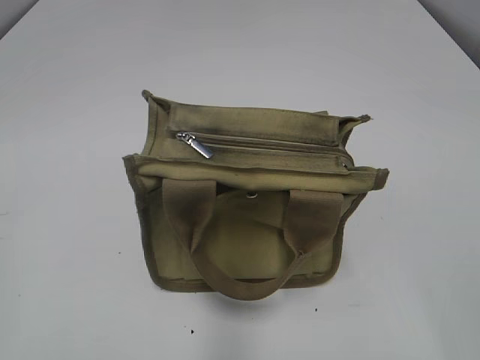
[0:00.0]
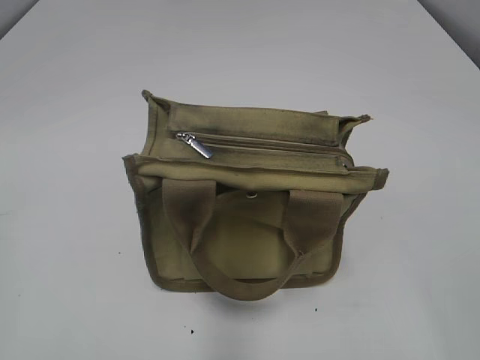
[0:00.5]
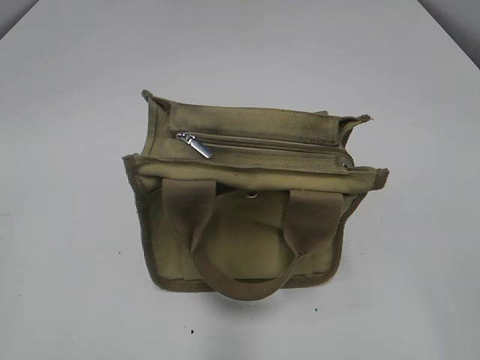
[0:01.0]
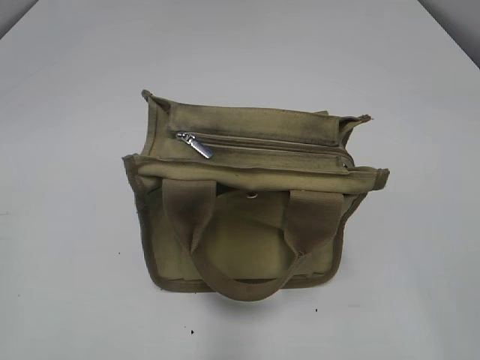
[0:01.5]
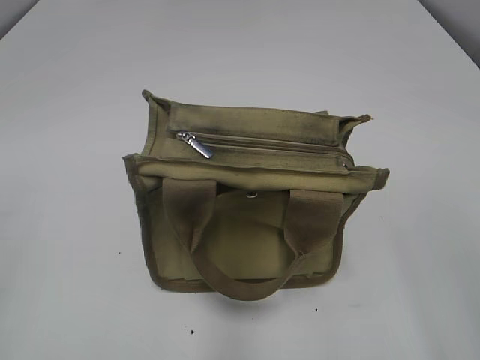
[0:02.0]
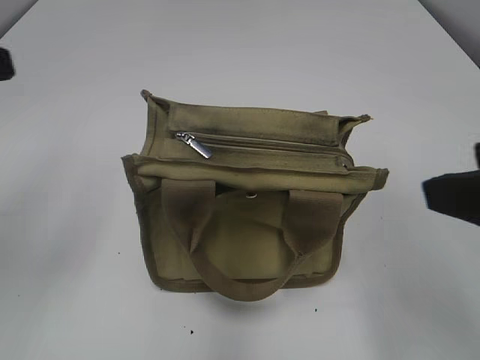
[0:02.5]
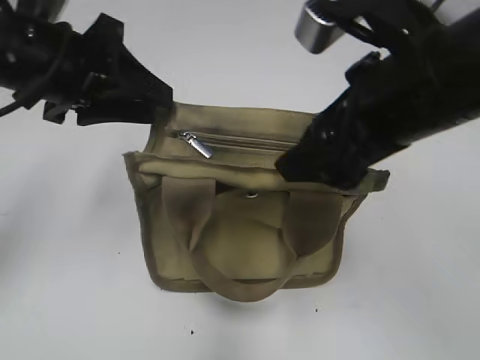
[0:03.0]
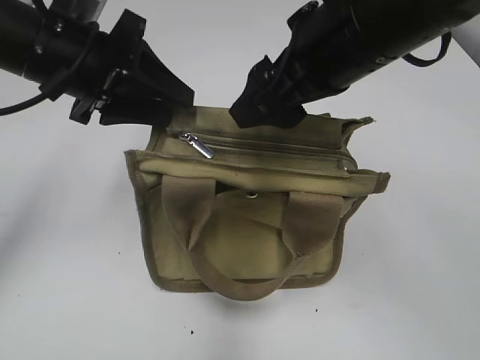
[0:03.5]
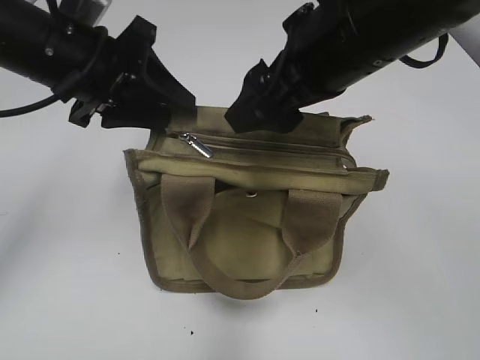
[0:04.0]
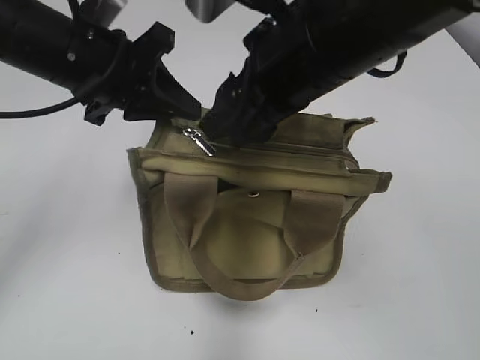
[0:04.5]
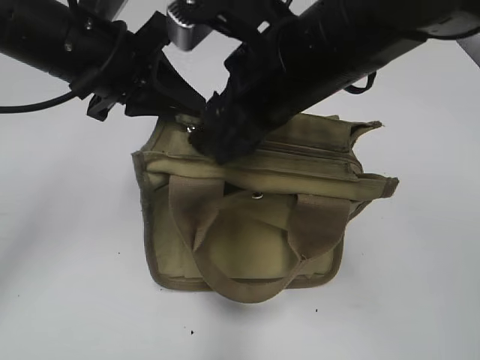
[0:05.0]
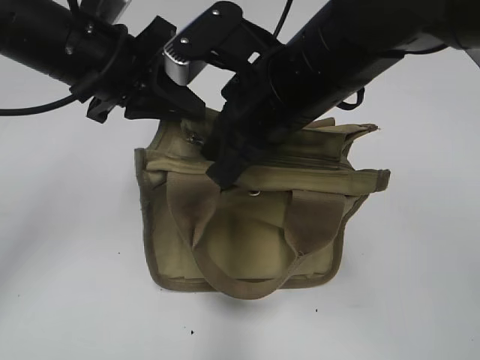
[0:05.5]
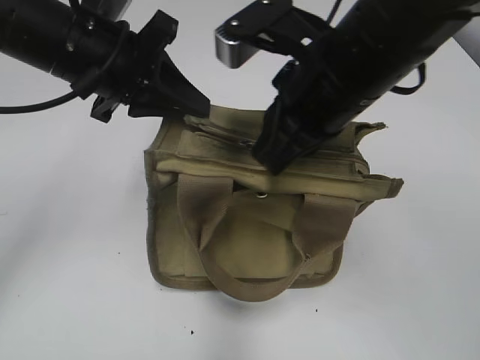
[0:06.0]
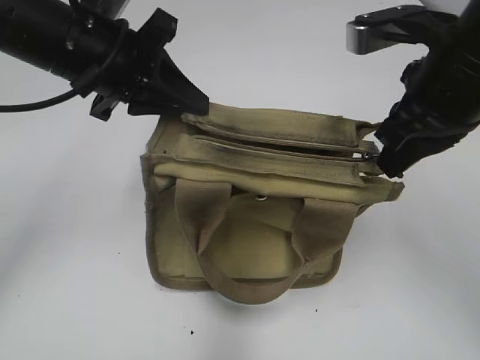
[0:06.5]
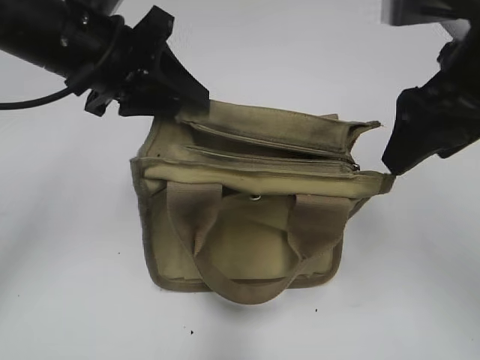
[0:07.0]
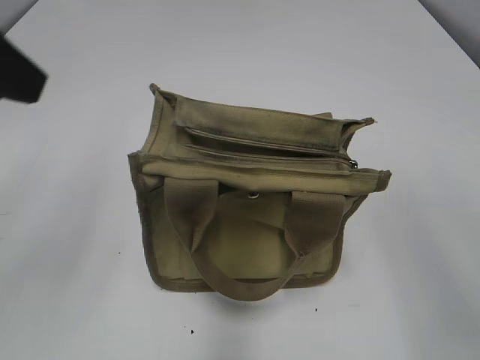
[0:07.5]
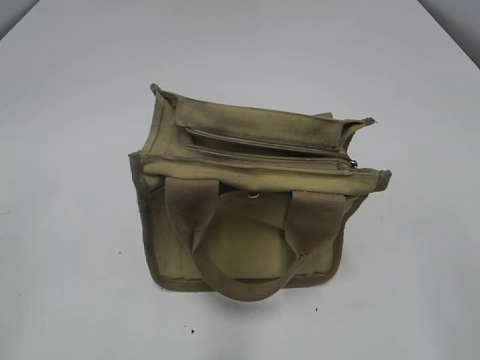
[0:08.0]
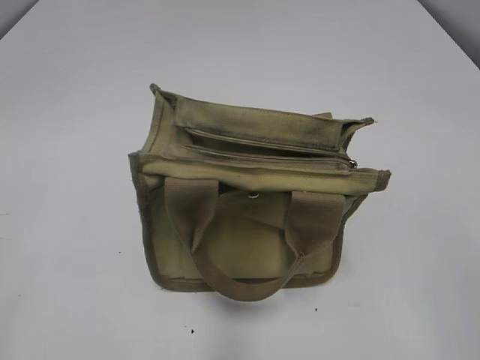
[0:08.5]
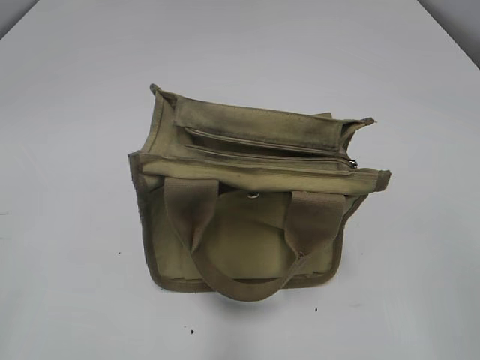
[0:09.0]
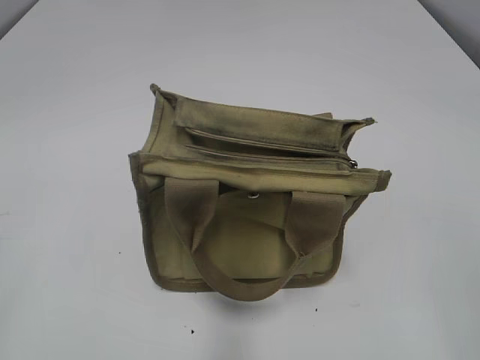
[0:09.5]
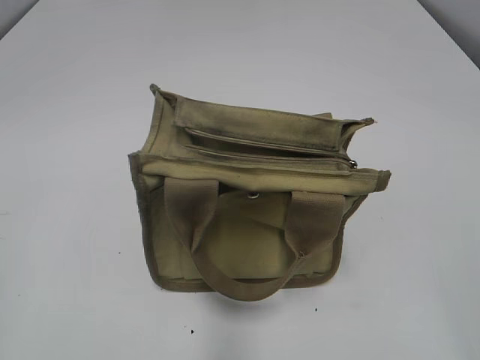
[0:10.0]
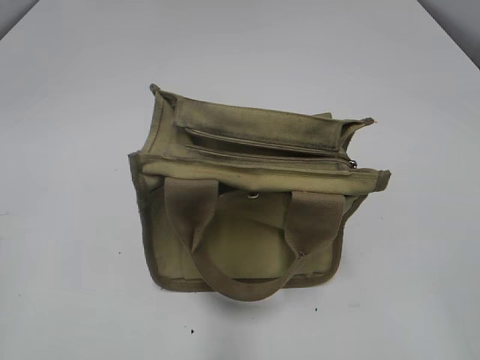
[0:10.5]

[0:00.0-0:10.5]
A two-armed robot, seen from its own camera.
Step, 0:00.0 to 0:06.5: Pull open the zipper with your right hand.
0:02.0 to 0:04.0: The left gripper travels forward and to the right by roughly 35 cm, while the right gripper travels forward and to the left by roughly 30 cm.
0:04.0 to 0:06.5: The right gripper goes about 10 cm to the right, and closes its fingers. The left gripper closes up.
0:06.5 to 0:08.5: The right gripper is displaced backward by approximately 25 cm, and opens. Meanwhile the left gripper moves backward and to the left, approximately 35 cm, and opens its fingers.

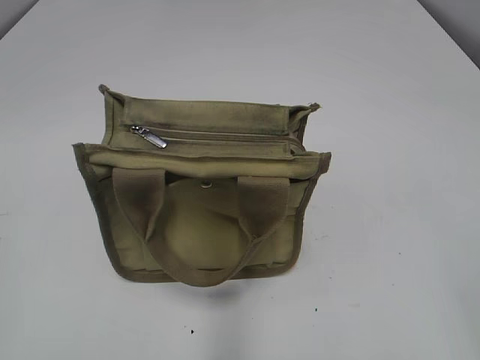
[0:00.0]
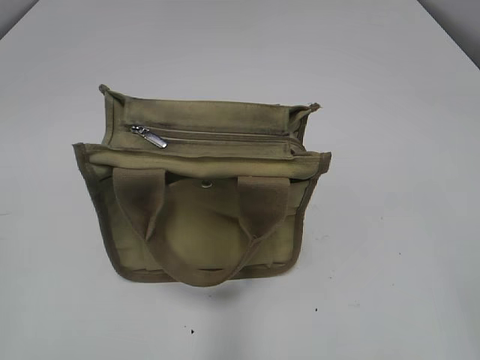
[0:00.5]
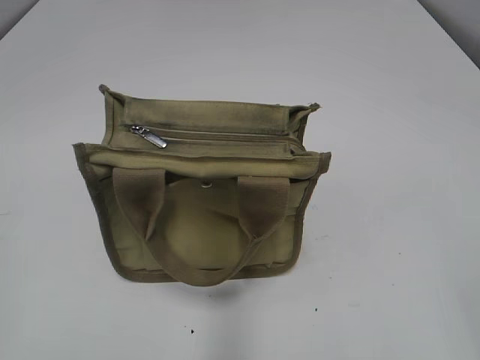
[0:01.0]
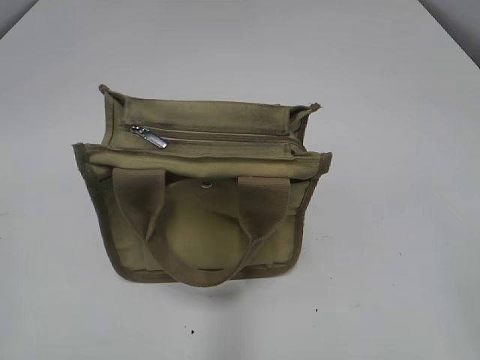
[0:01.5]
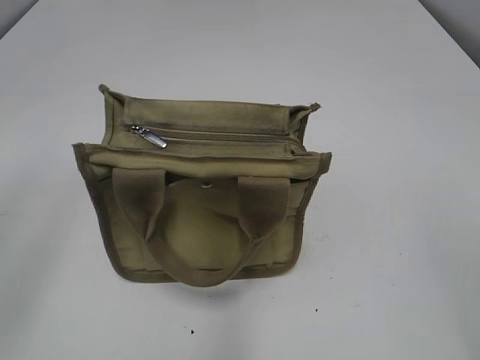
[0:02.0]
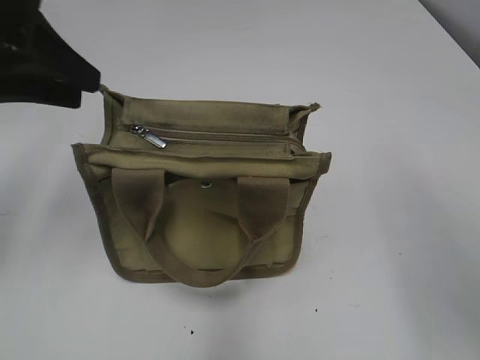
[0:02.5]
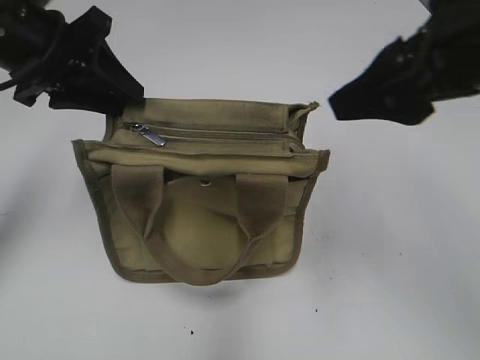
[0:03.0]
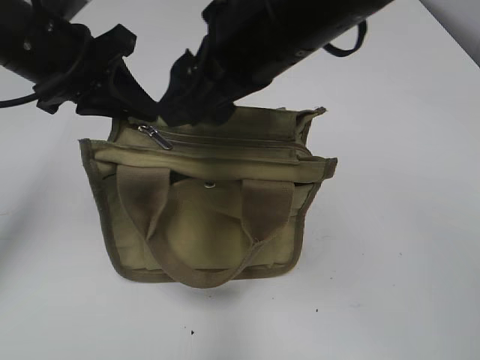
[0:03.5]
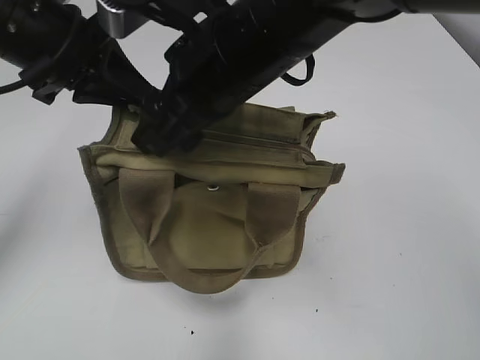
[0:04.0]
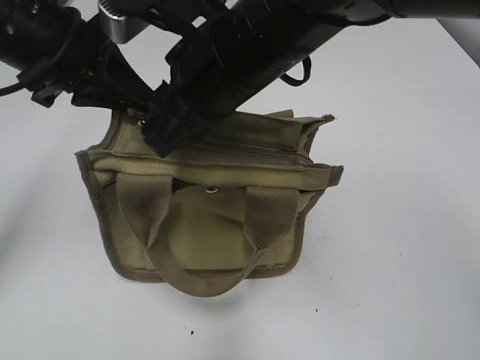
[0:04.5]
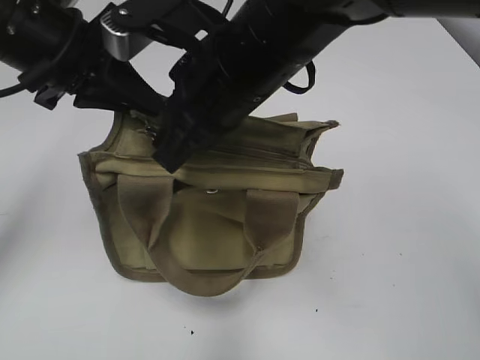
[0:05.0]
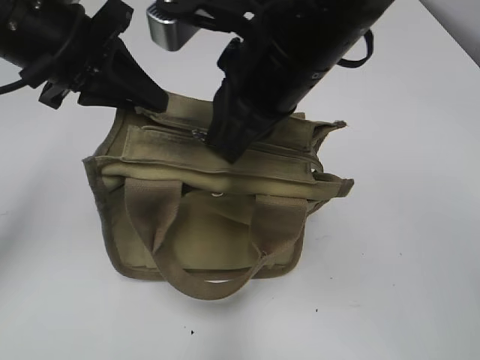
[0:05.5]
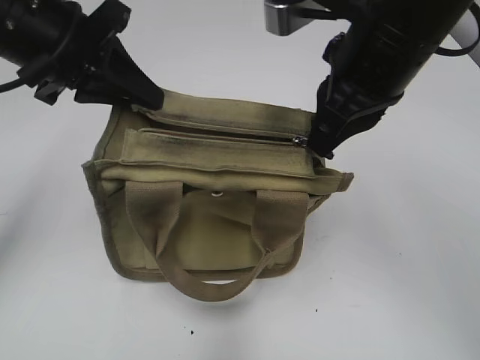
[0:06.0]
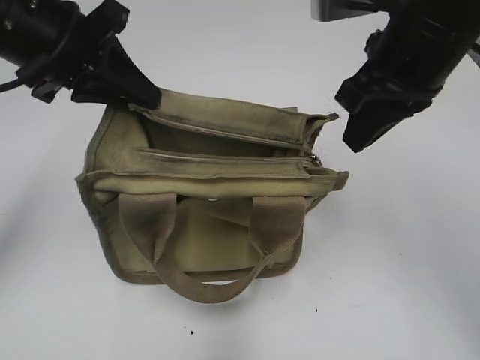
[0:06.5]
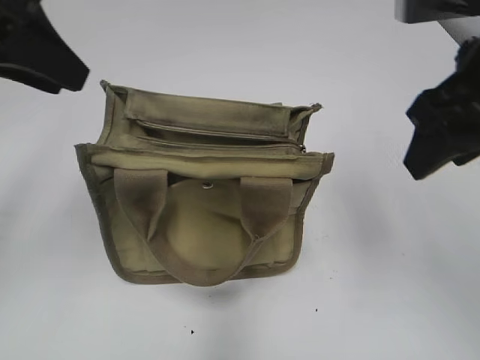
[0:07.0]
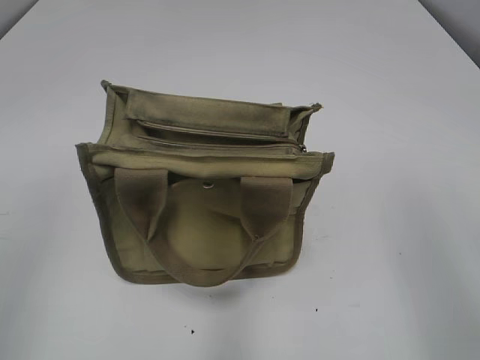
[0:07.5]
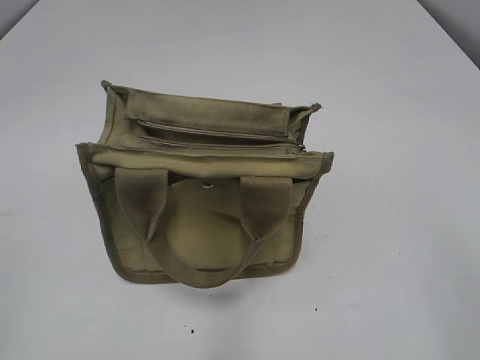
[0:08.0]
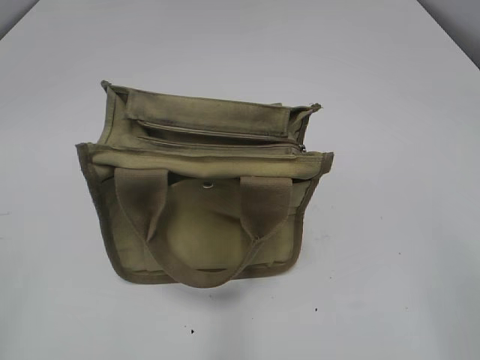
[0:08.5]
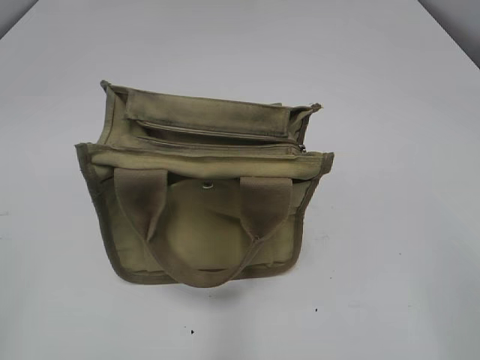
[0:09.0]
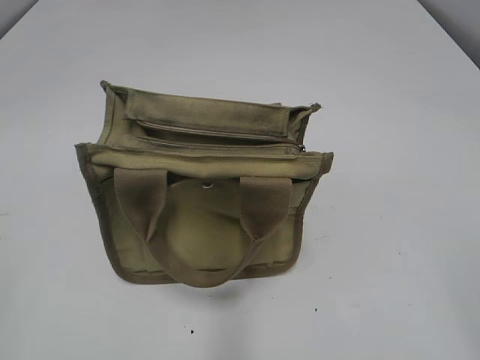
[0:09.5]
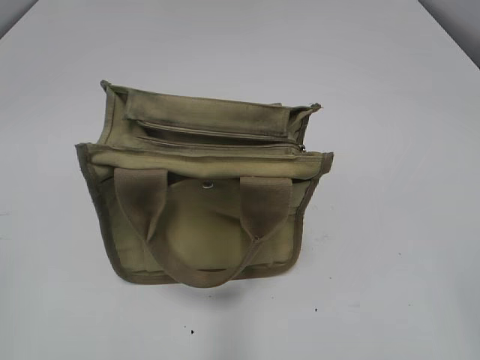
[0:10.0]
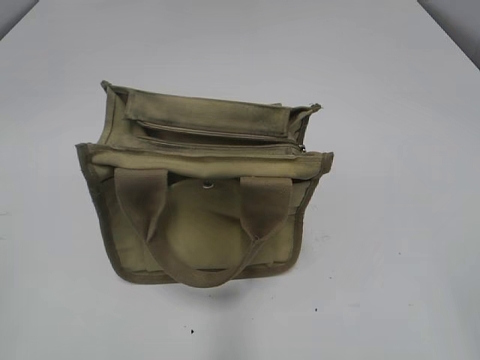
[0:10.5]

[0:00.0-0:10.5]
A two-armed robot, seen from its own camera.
Step, 0:00.0 to 0:06.0: Pull open the zipper with your right hand.
0:02.0 to 0:04.0: The right gripper moves to the left and forward, roughly 35 cm, while the left gripper travels forward and to the right by some 25 cm, and closes its fingers.
0:04.0 to 0:06.5: The right gripper heads to the right, covering some 15 cm, and closes.
0:06.5 to 0:08.5: The right gripper is displaced backward and to the right by approximately 30 cm, and opens its fingers. The left gripper shifts some 30 cm backward and to the left, and opens.

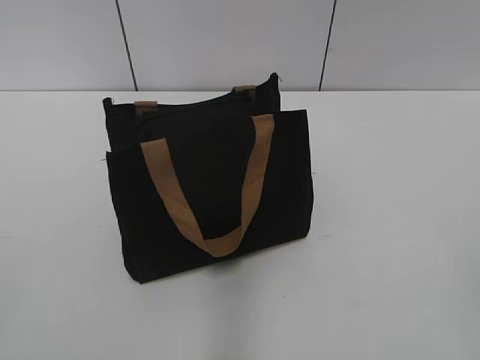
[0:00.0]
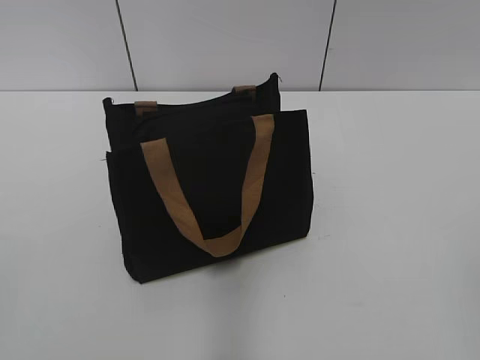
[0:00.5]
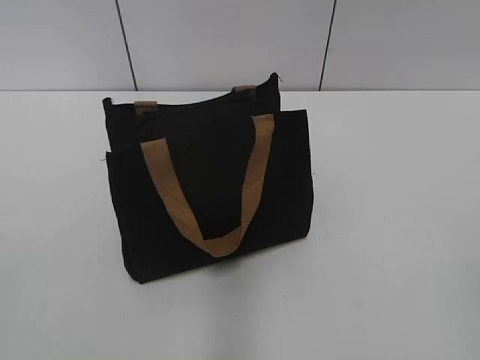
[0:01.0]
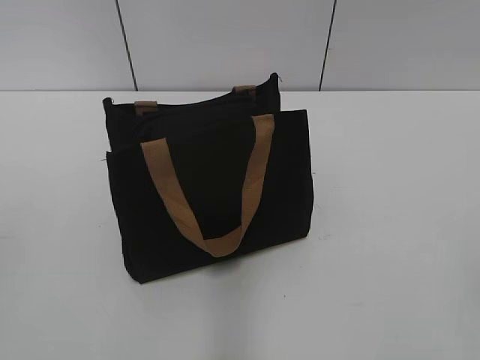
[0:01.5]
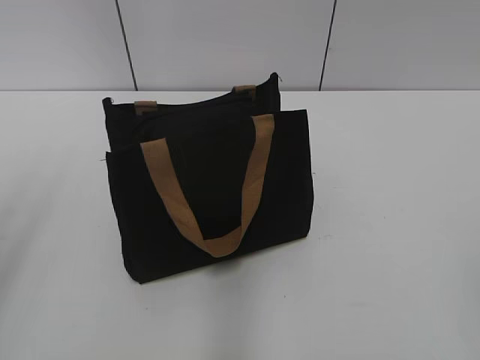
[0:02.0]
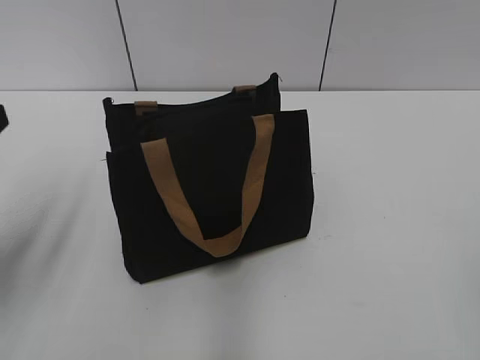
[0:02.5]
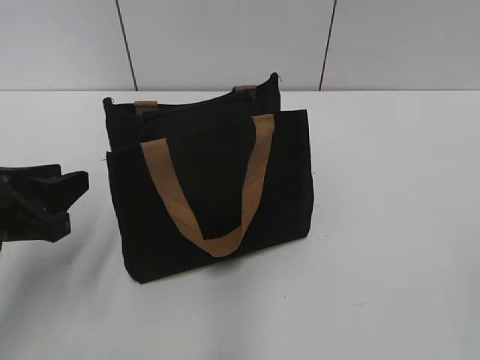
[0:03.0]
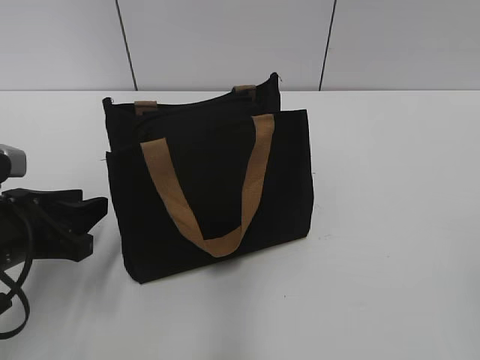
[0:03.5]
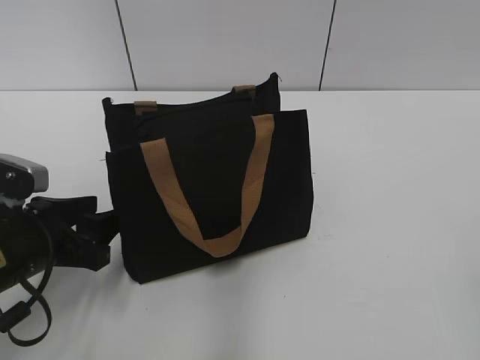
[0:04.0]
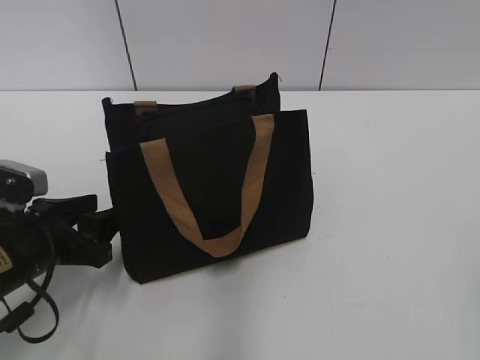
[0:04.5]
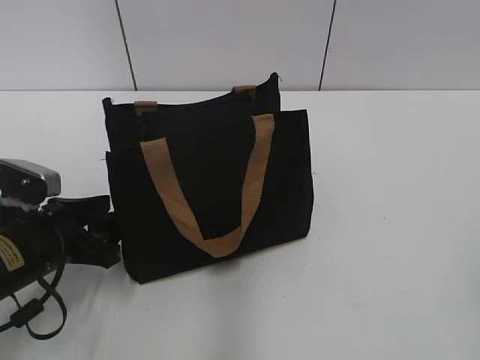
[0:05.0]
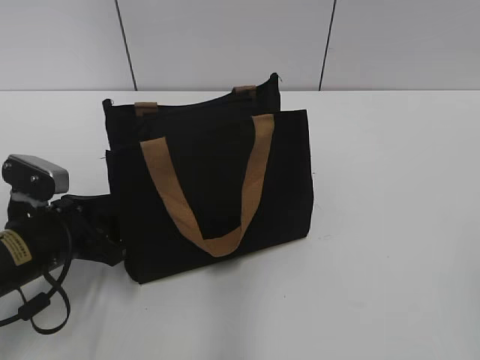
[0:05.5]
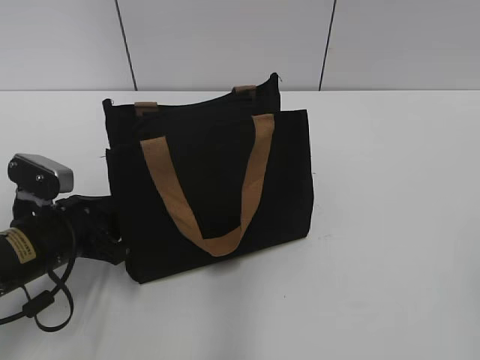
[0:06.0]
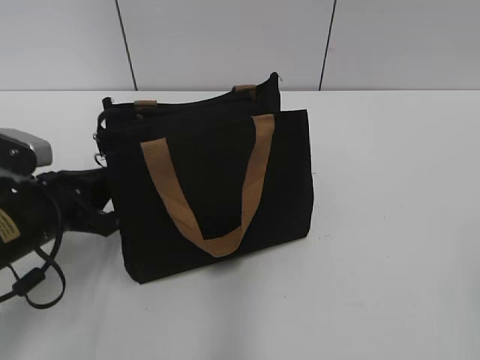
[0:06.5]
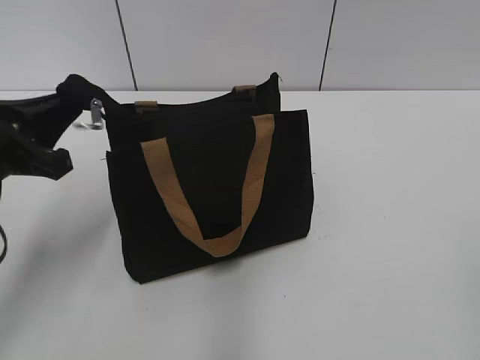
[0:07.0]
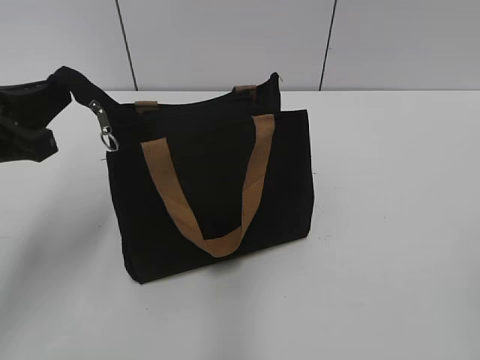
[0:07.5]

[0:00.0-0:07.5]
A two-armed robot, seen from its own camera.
0:02.0 to 0:04.0: The left gripper is displaced downward and forward by some 25 cm.
0:04.0 to 0:05.5: The grippers make only small movements.
0:05.5 to 0:07.5: The left gripper moves upward, about 15 cm, and closes up.
